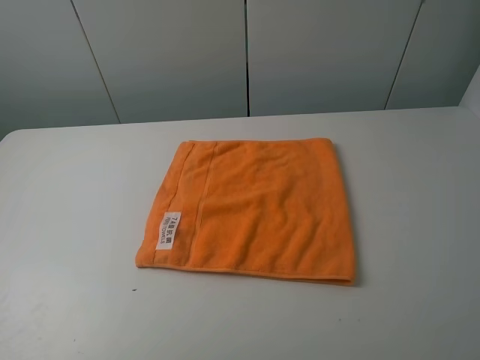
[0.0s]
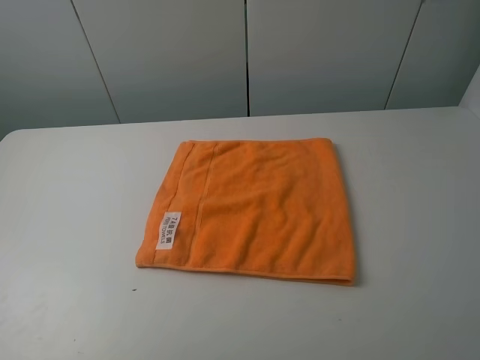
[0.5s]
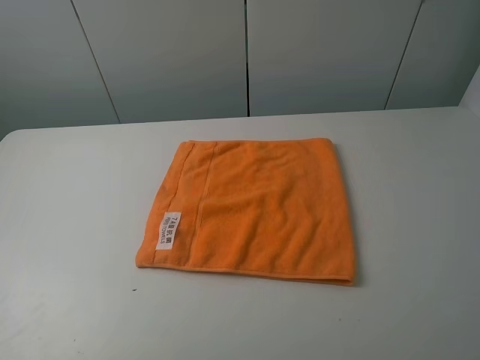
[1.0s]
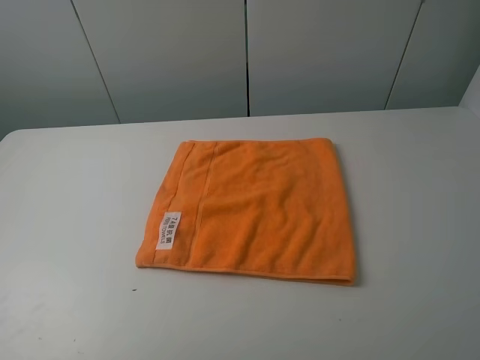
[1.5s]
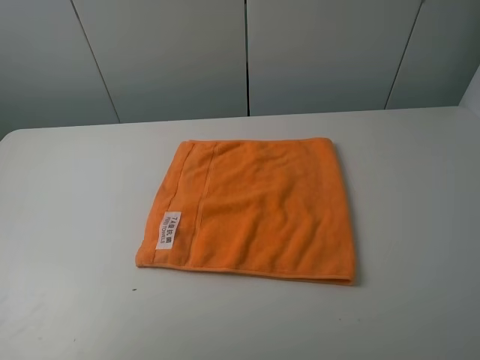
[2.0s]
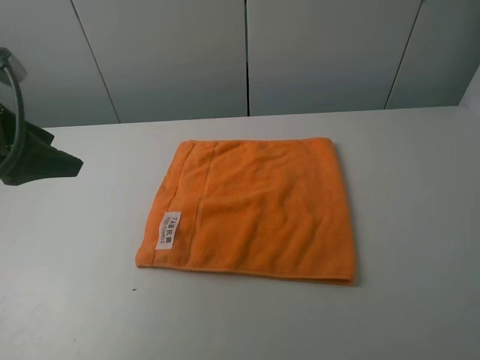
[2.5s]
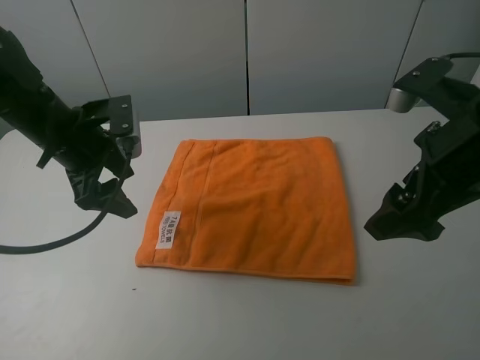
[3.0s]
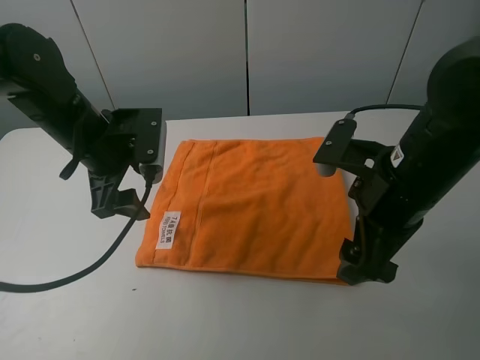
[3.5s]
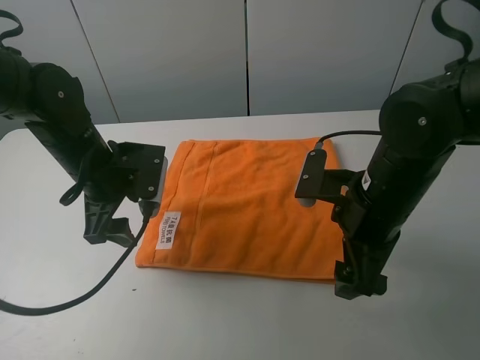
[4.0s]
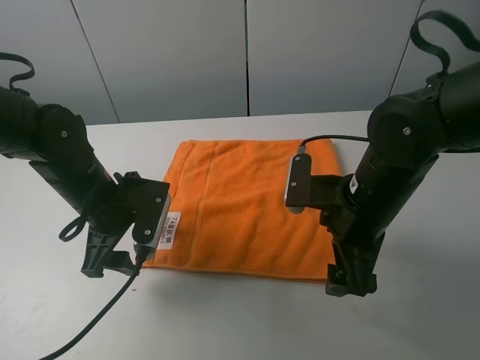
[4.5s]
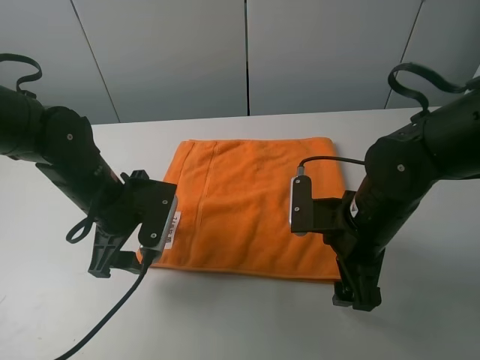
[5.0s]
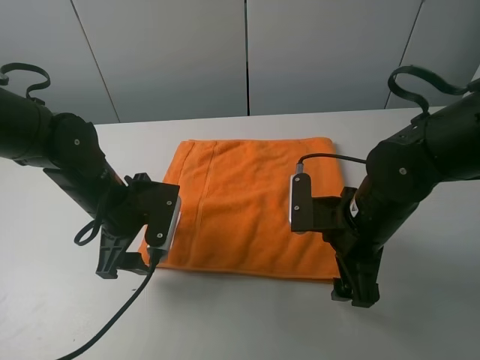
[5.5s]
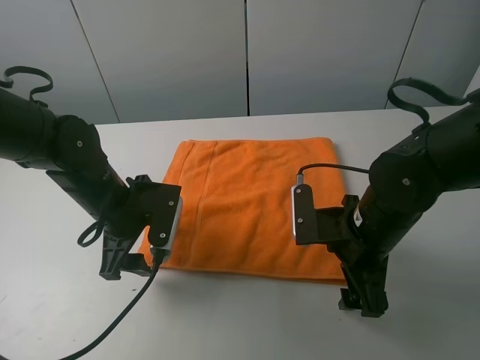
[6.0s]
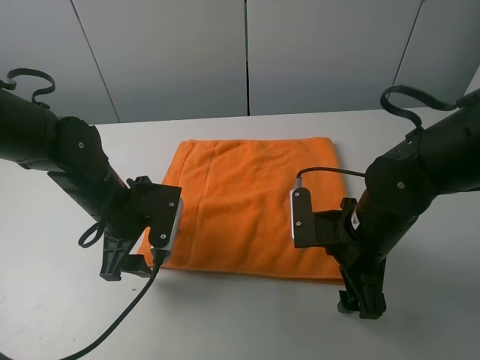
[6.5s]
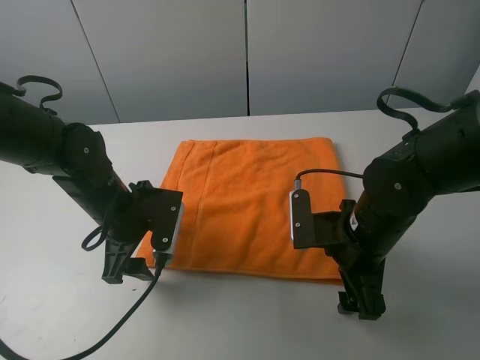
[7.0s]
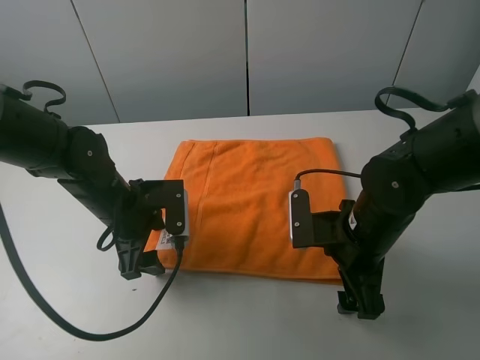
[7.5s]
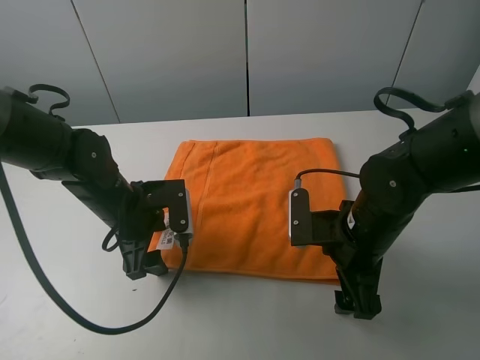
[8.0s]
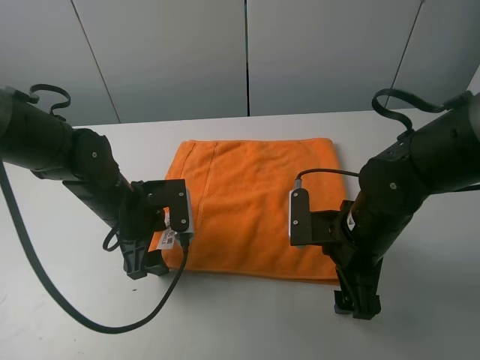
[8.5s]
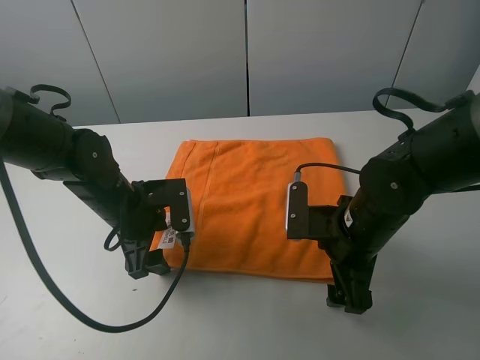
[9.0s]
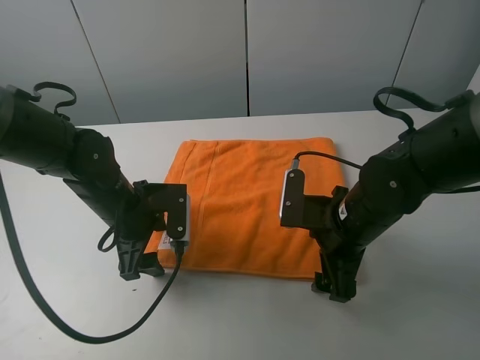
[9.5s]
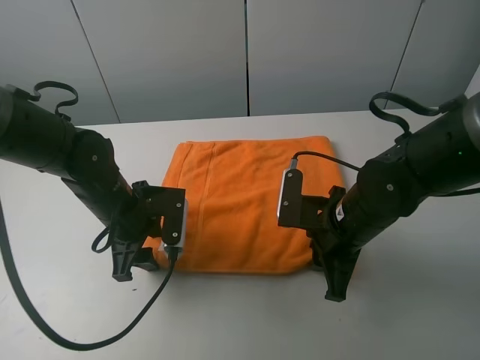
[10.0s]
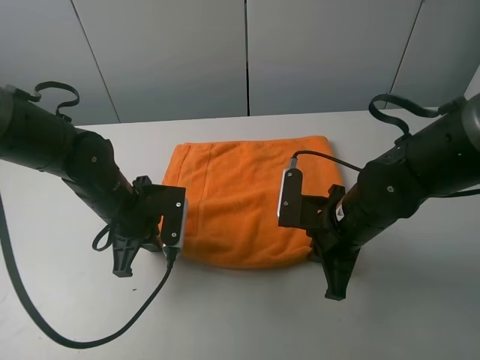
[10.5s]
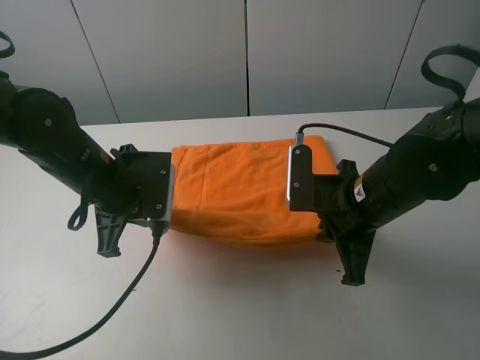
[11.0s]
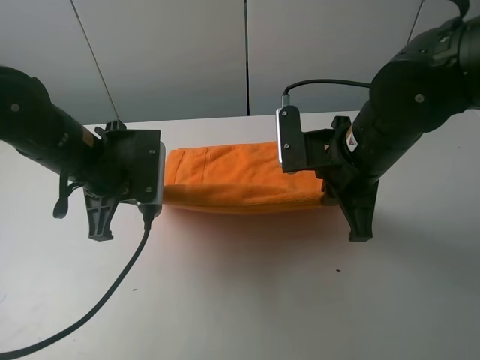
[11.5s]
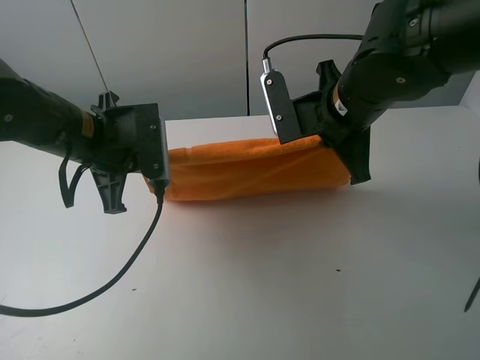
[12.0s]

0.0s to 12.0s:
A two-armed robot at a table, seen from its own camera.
Task of the whole recording: fold the towels on the table.
Step, 0.0s to 10.0s: Grasp the orange towel with the right gripper.
2.0s to 4.0s: The right gripper is displaced forward, to the left and downward by some 25 cm. The left gripper moves forward, downward and to the right, about 25 cm.
4.0s to 6.0s: The grippers make only small movements.
6.0s to 8.0s: The grippers make only small movements.
8.0s to 10.0s: The left gripper closes its fingers. Meanwhile the right gripper closes up.
10.0s to 12.0s: The right gripper goes roughly 15 cm upward and forward, while the left gripper goes roughly 10 cm upward, and closes up.

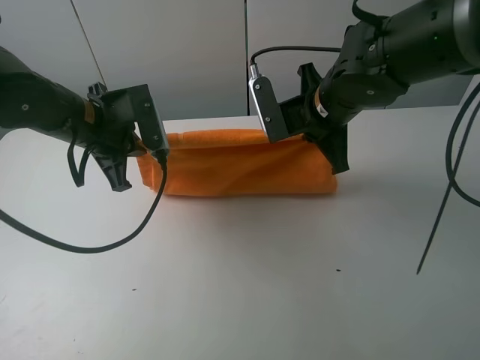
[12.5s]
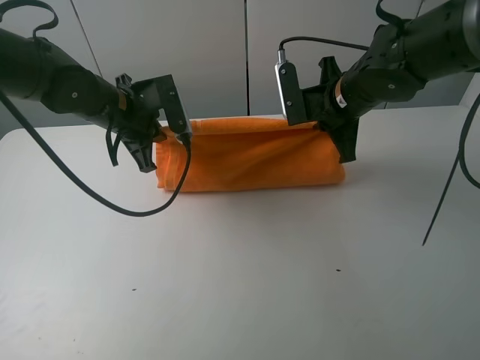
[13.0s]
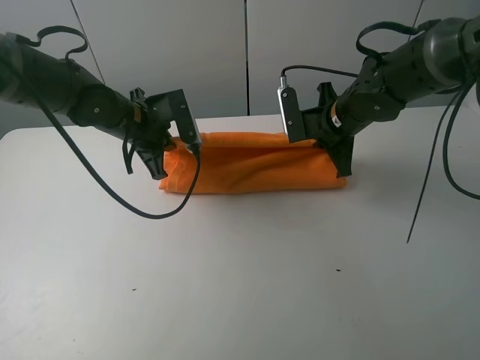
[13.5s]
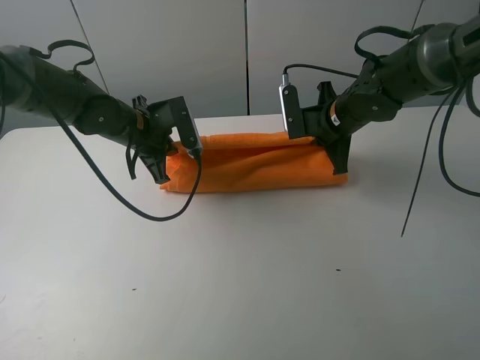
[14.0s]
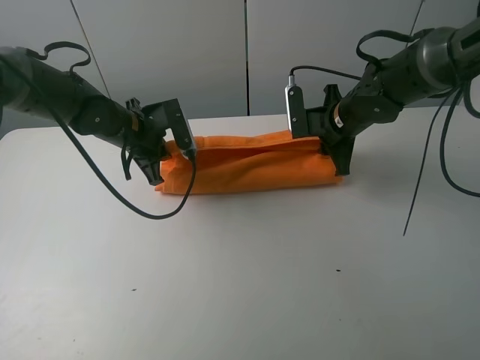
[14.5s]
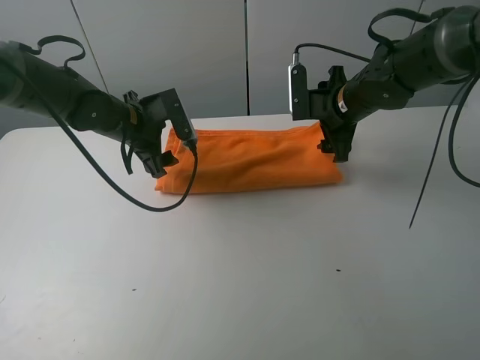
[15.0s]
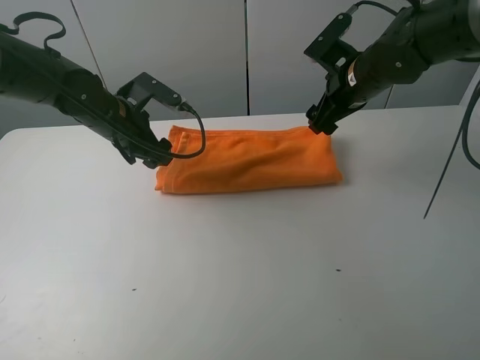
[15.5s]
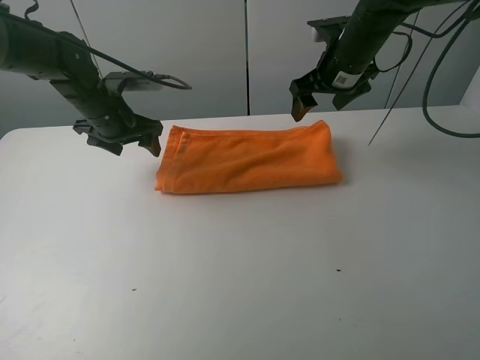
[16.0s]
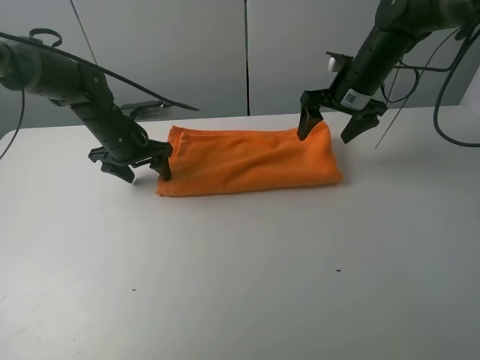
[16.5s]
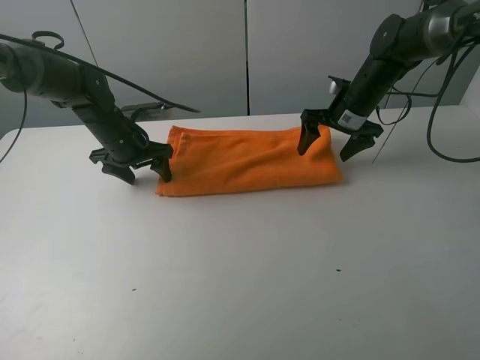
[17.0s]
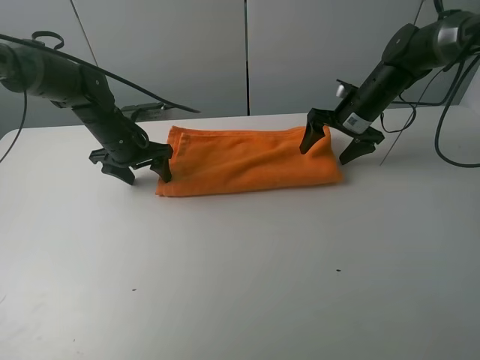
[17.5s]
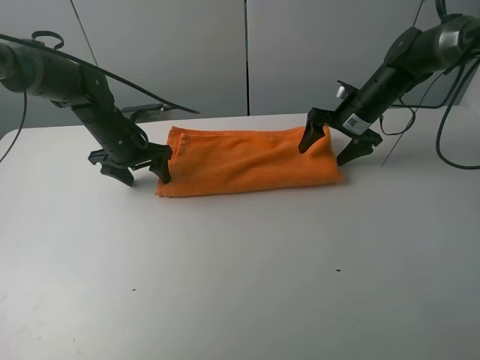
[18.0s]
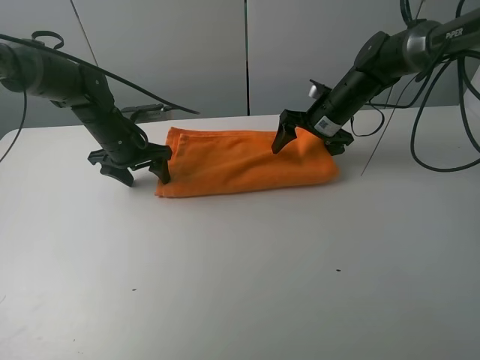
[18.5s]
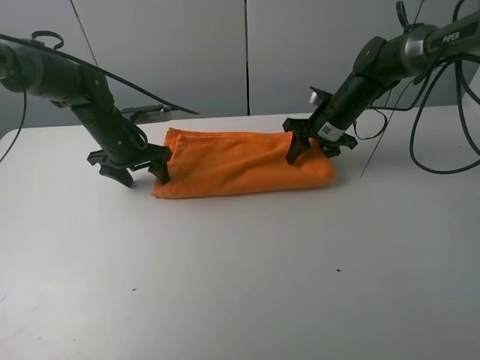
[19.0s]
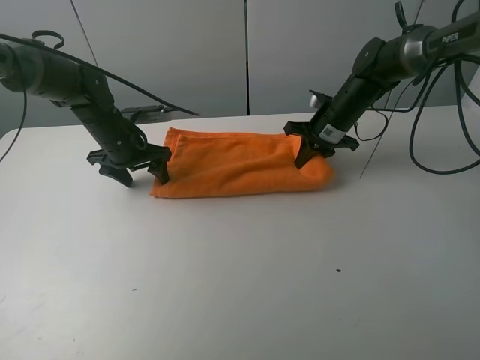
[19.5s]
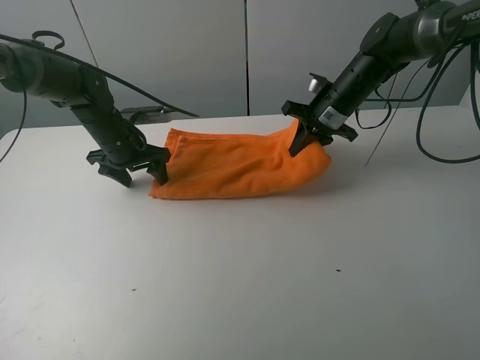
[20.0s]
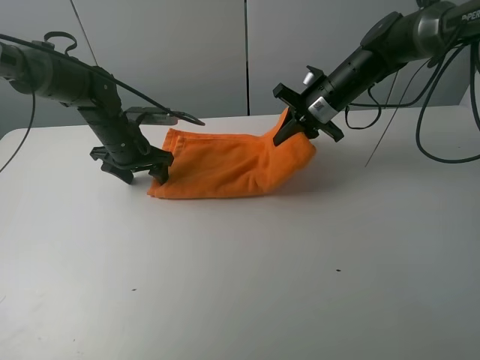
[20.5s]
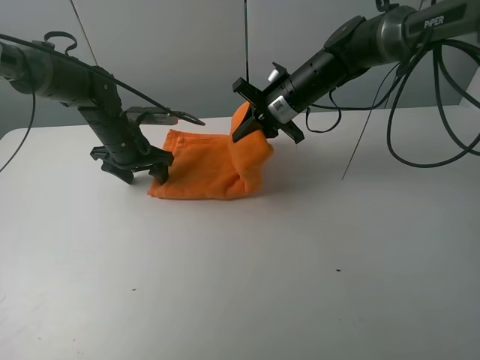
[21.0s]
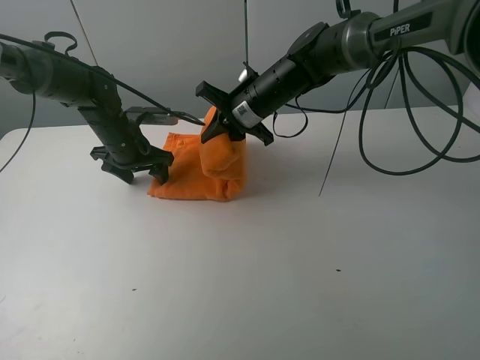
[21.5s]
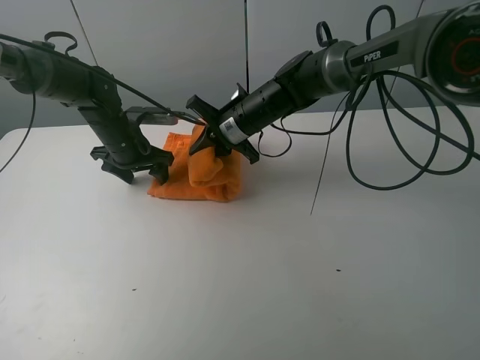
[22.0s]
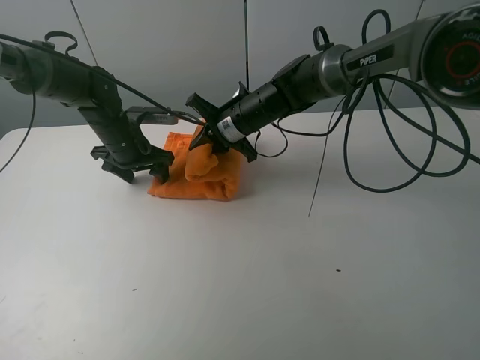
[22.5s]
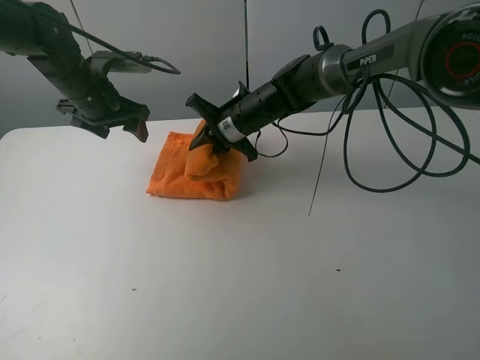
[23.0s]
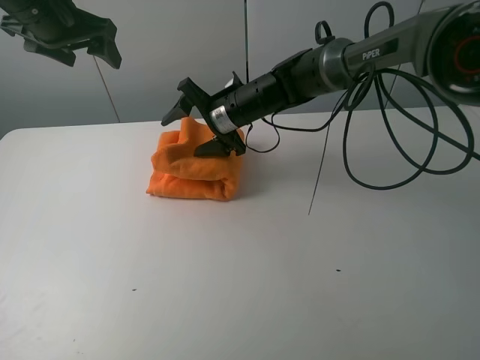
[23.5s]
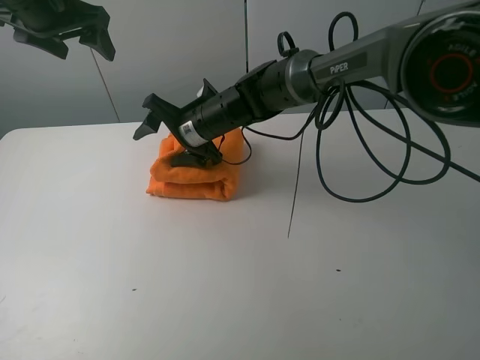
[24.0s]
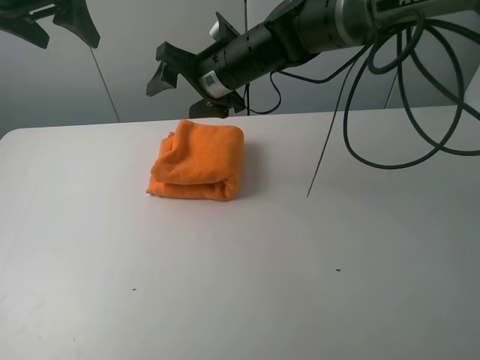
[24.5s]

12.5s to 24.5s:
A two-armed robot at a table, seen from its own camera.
Task of the whole recording: fold the towels on the table.
Step, 12.5s to 15.0s: Fold the orange towel upwards with the right gripper.
Step, 15.5s to 16.5s: Press on the orange towel with the left gripper.
Step, 17.0s to 23.5s: Fold the orange towel from right to left with right gripper.
12.5s to 14.5s: The right gripper heads downward and forward, covering approximately 10 cm, and opens up, while the left gripper is displaced forward and downward by approximately 10 cm, and opens up.
14.5s to 16.5s: The left gripper moves some 5 cm, and opens up; the right gripper moves roughly 5 cm, and opens its fingers.
16.5s to 18.5s: The right gripper moves downward, roughly 5 cm.
18.5s to 20.5s: The right gripper closes its fingers.
20.5s to 22.5s: The right gripper travels to the left by some 15 cm.
22.5s to 24.5s: The left gripper heads upward, covering approximately 25 cm; the right gripper travels upward by roughly 10 cm, and opens its fingers.

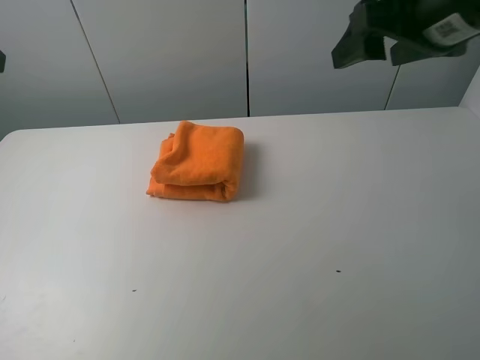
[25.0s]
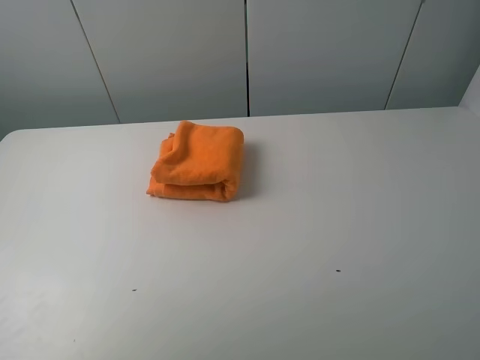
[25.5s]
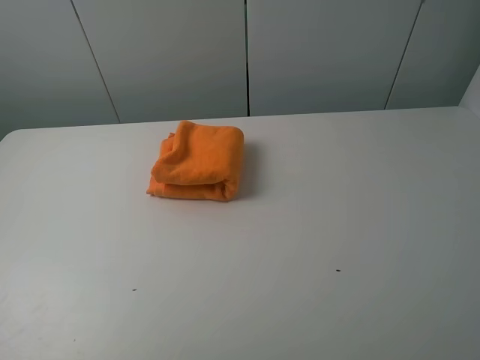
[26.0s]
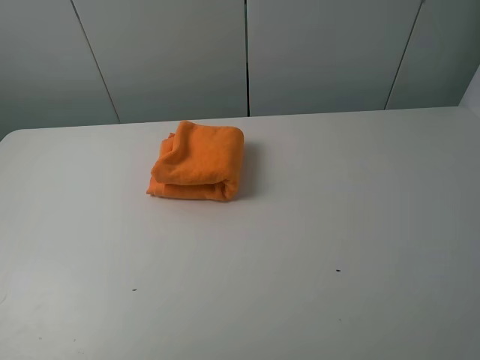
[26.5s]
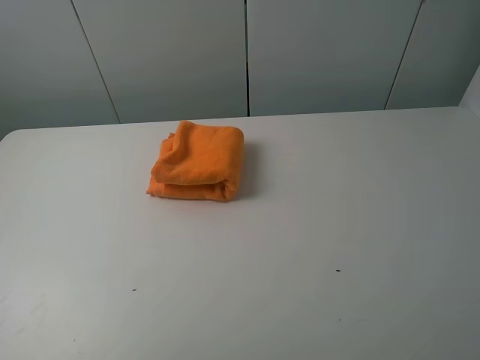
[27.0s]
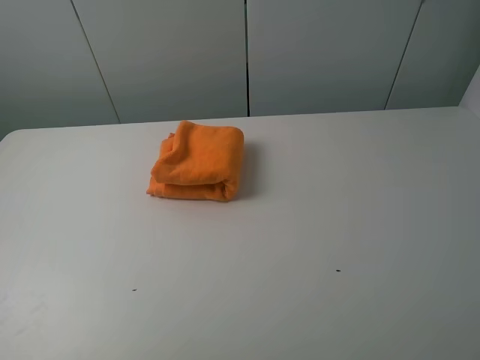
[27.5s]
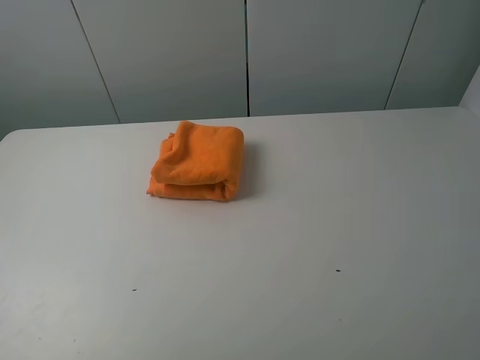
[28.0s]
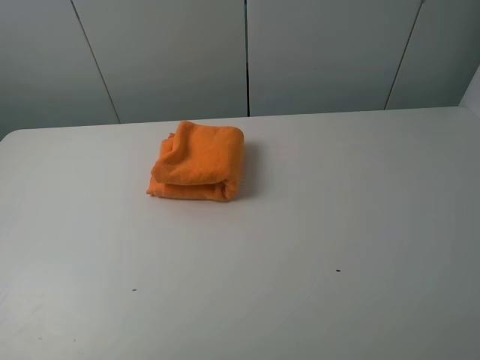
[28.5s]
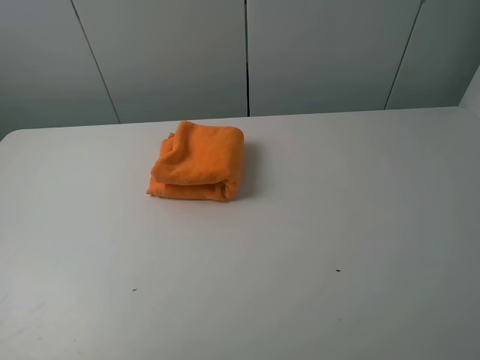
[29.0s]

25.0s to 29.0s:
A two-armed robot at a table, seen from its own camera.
Task of the whole recording: fold the towels on the table.
25.0s to 27.0s: The left gripper shifts roughly 25 cm backward and downward, while the right gripper shifts some 25 cm backward and to the right.
